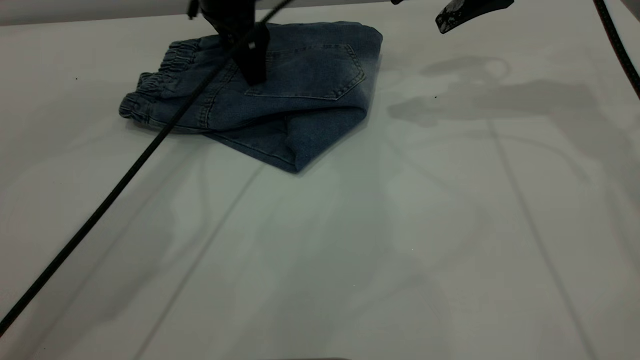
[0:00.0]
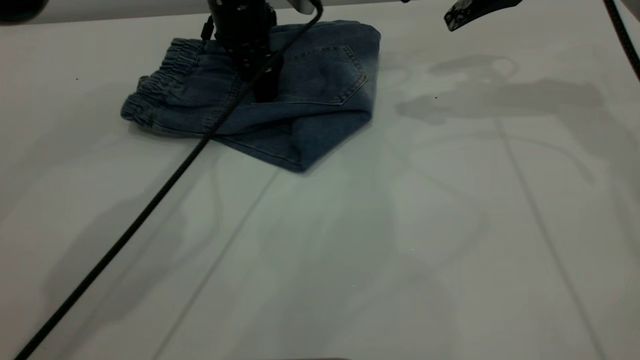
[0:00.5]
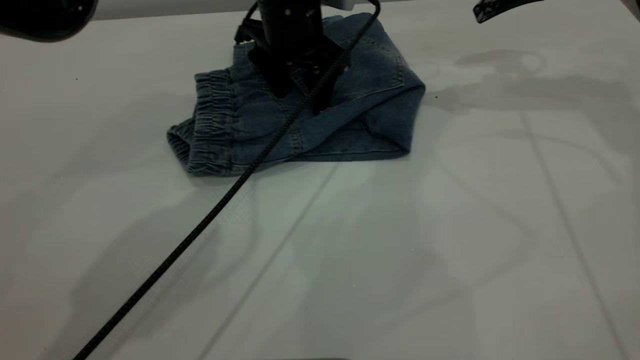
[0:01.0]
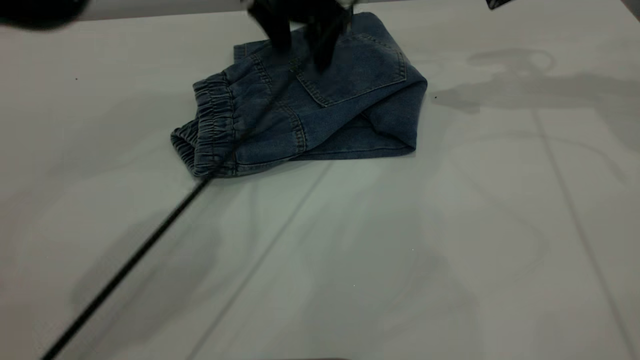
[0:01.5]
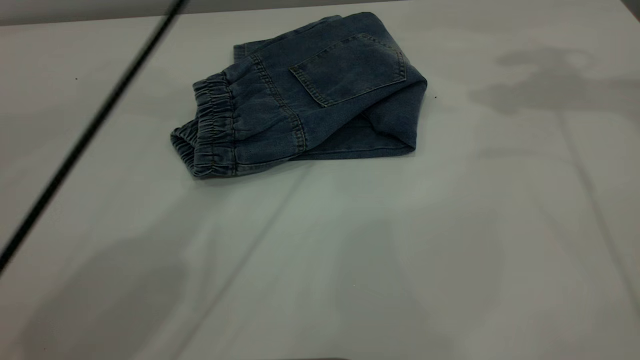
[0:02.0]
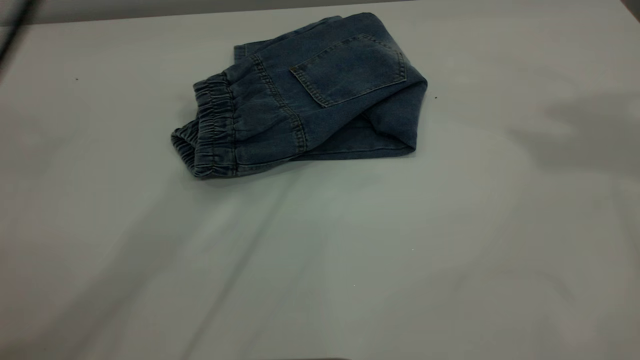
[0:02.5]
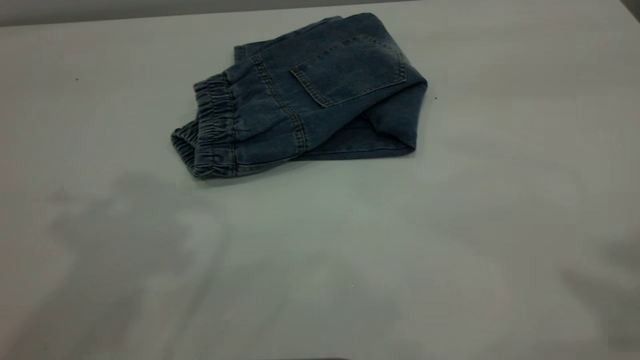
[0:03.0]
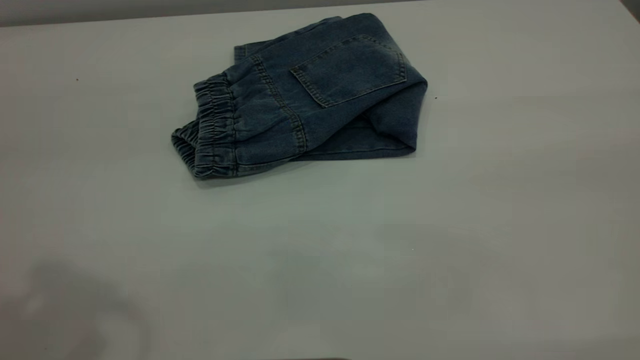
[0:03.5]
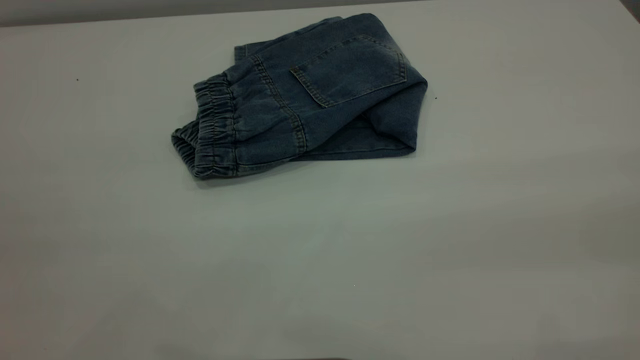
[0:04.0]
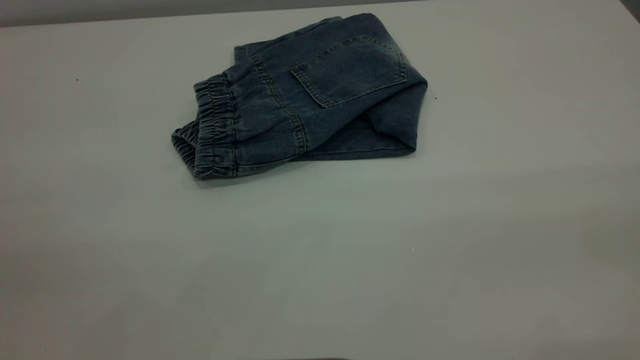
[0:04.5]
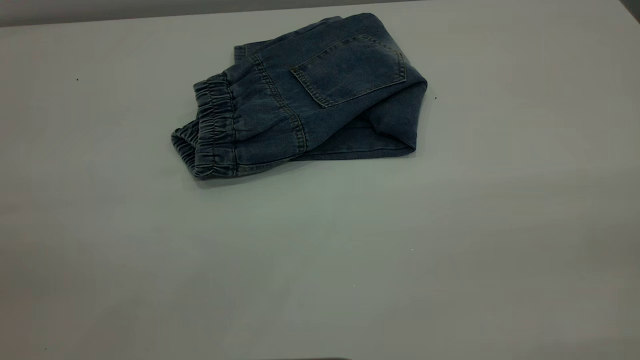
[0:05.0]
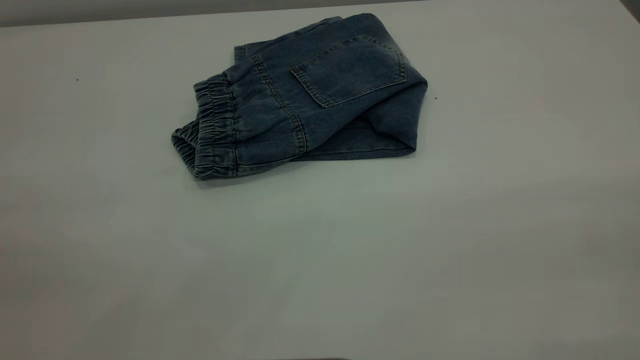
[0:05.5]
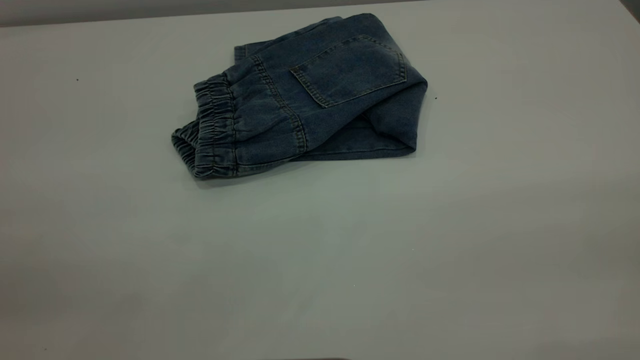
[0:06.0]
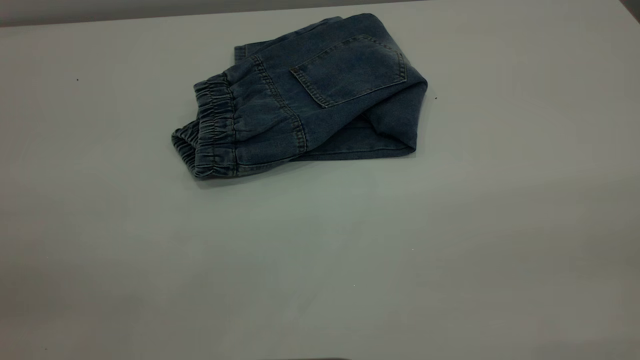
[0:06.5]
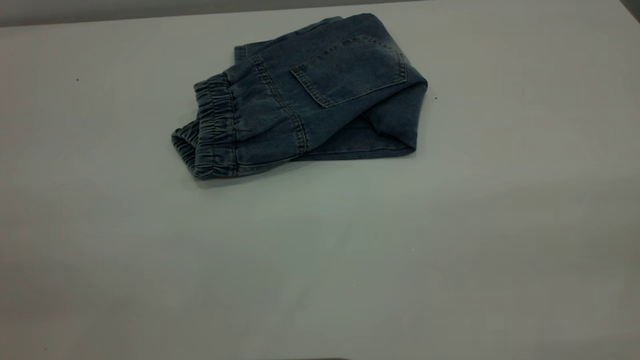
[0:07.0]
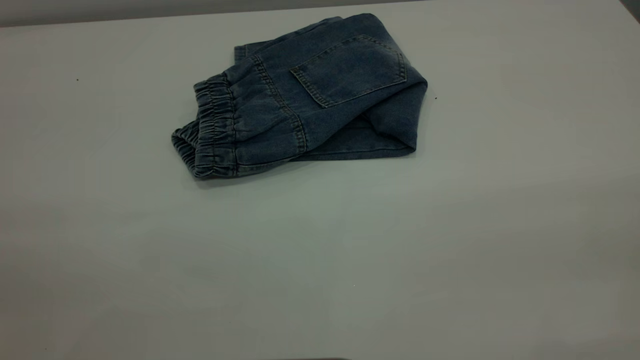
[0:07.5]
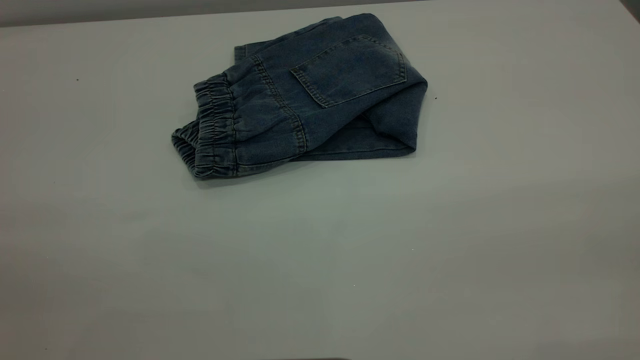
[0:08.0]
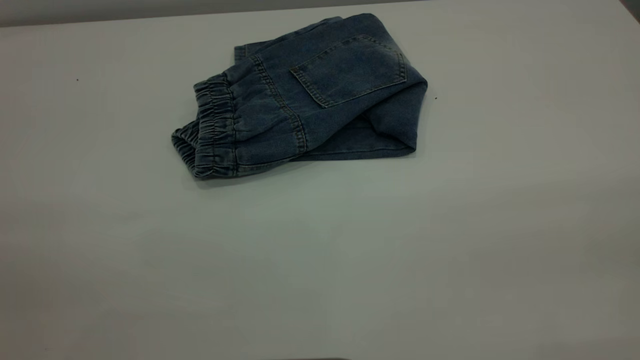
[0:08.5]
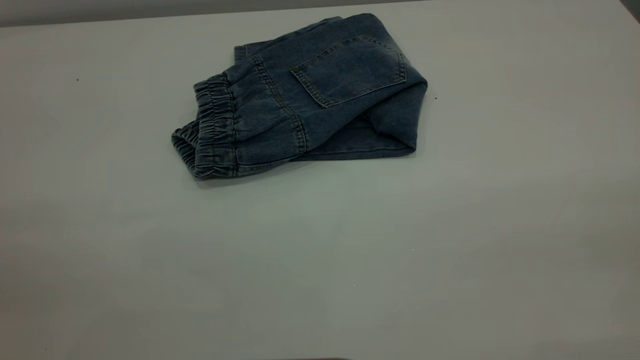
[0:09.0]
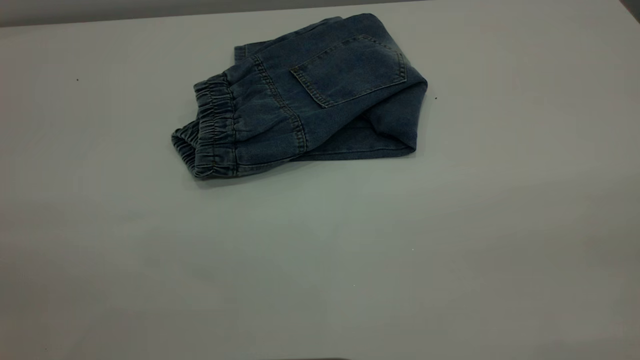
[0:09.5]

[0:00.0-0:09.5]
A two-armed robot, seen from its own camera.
0:00.0 to 0:02.0: The right gripper shifts roughly 15 cm upward and to the right. The left gripper is displaced upward by roughly 20 cm.
0:02.0 to 0:04.0: The left gripper goes some 50 cm backward and to the left.

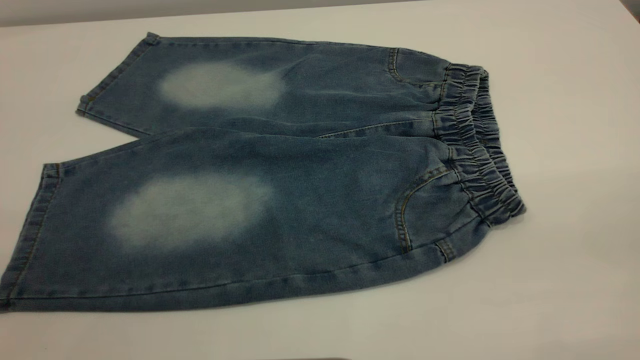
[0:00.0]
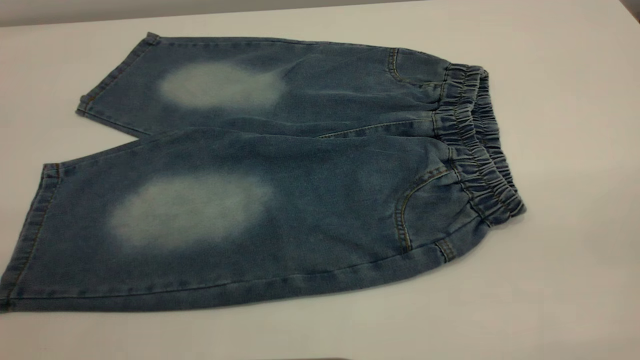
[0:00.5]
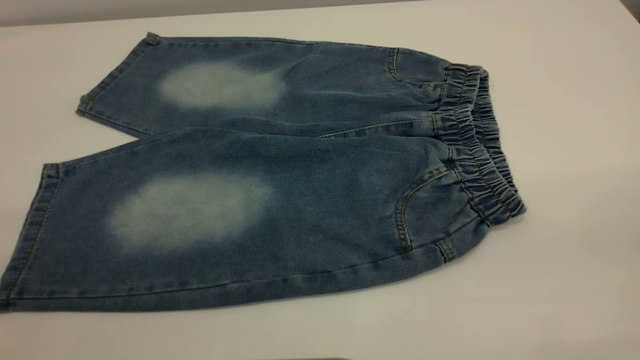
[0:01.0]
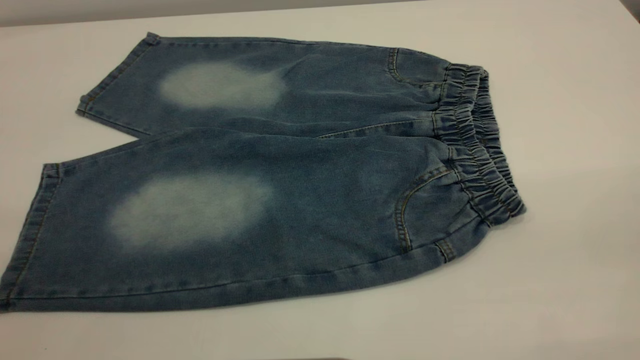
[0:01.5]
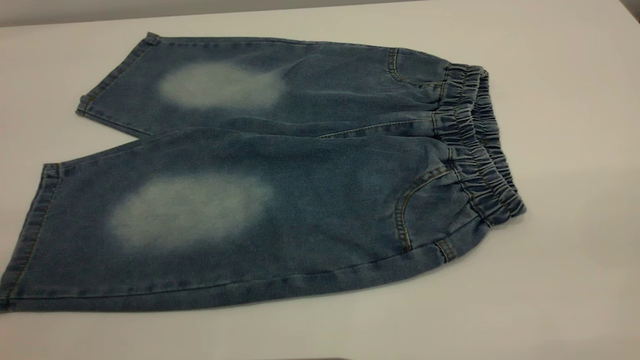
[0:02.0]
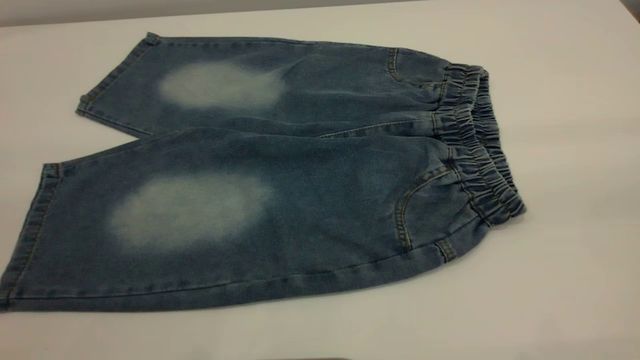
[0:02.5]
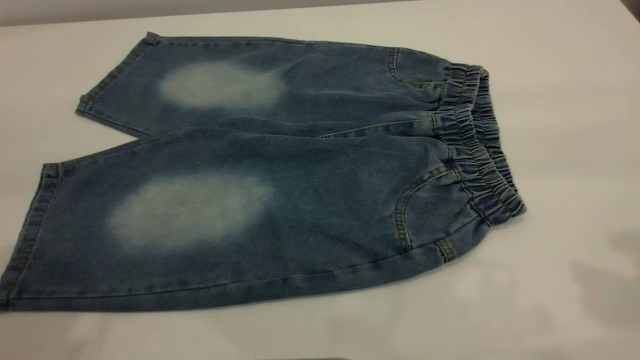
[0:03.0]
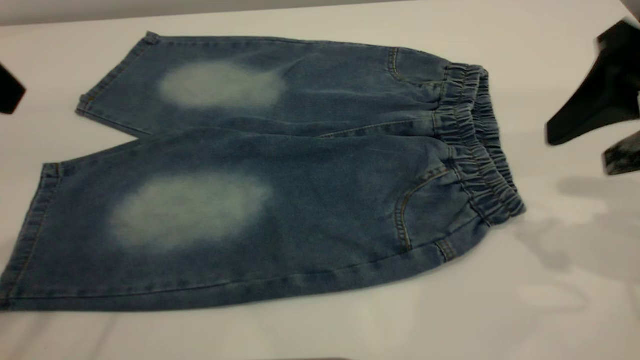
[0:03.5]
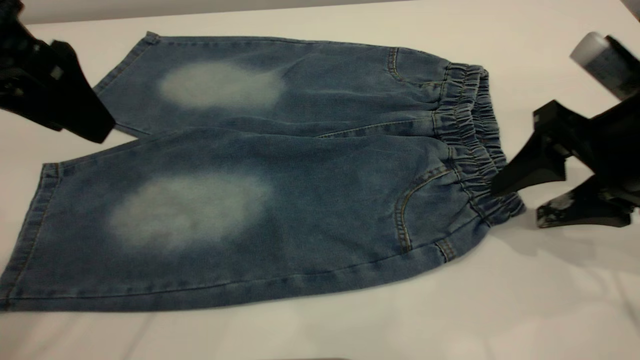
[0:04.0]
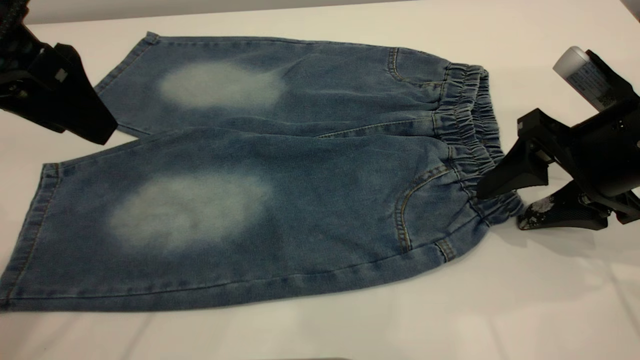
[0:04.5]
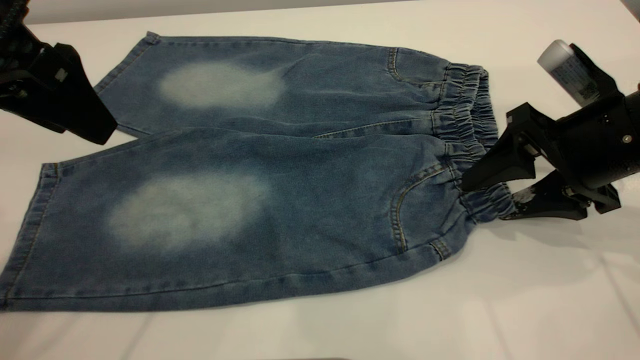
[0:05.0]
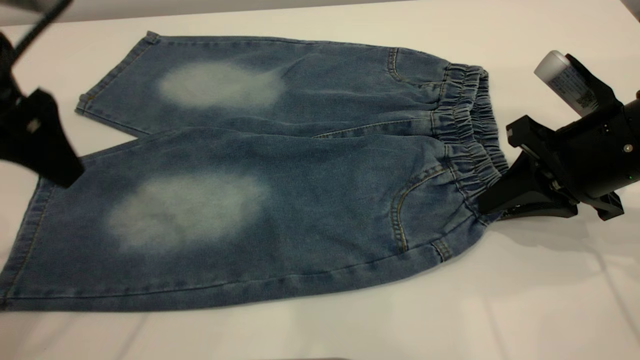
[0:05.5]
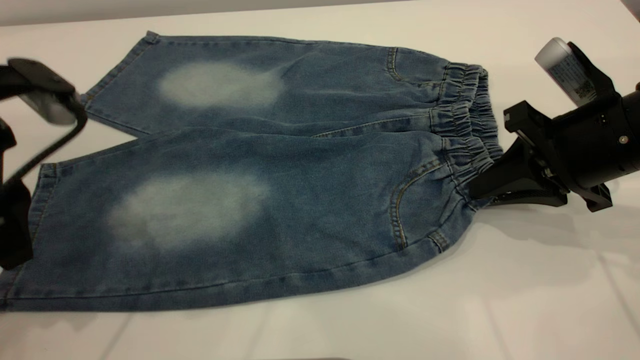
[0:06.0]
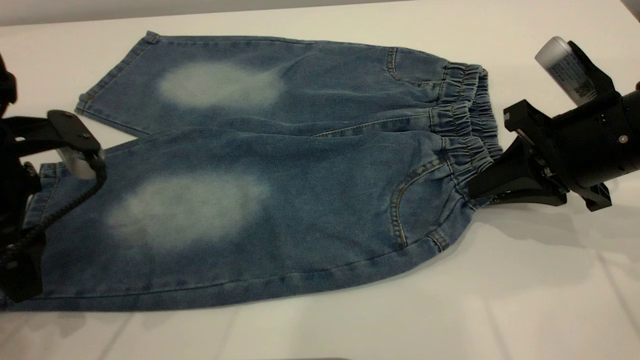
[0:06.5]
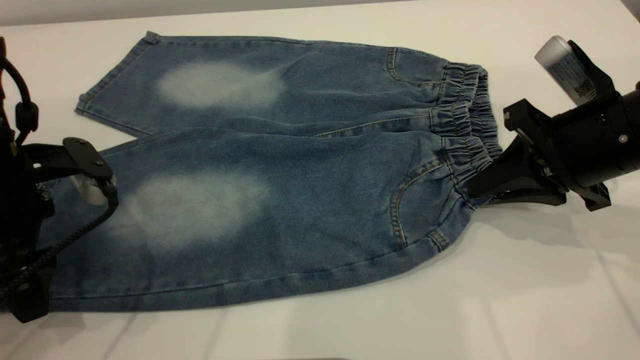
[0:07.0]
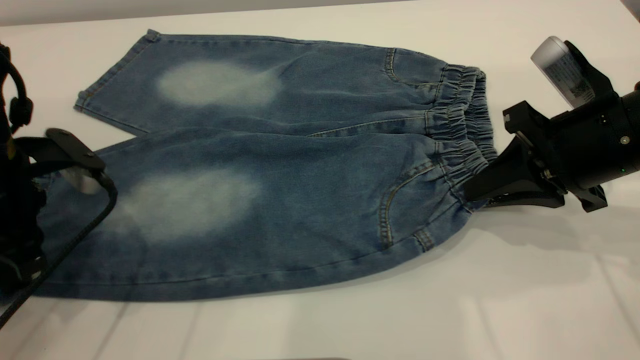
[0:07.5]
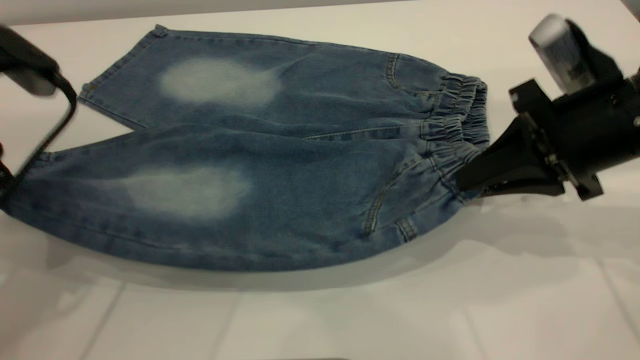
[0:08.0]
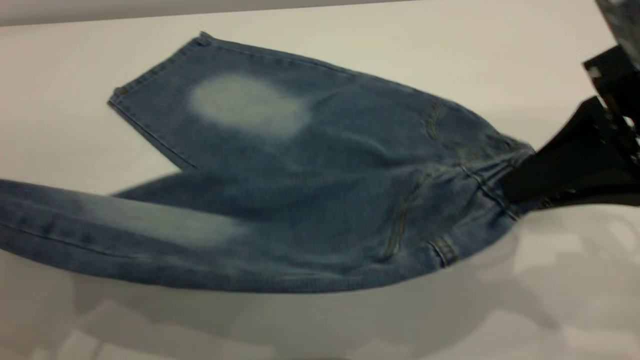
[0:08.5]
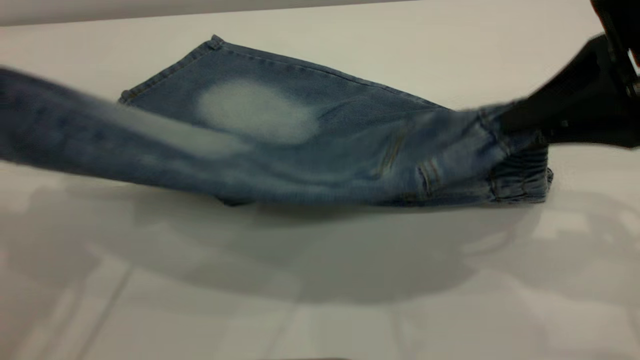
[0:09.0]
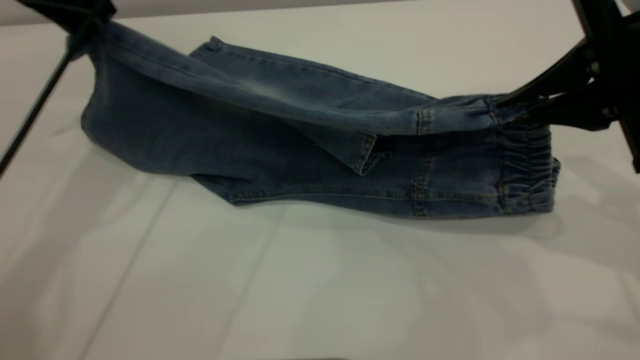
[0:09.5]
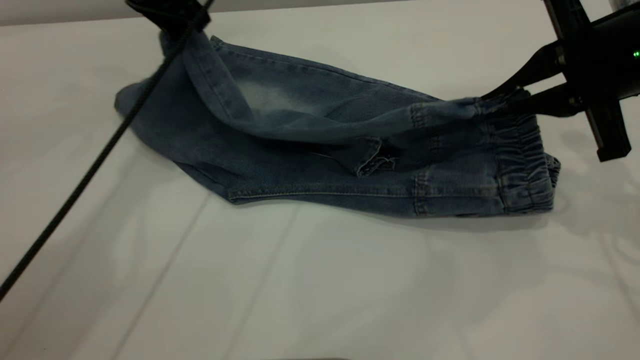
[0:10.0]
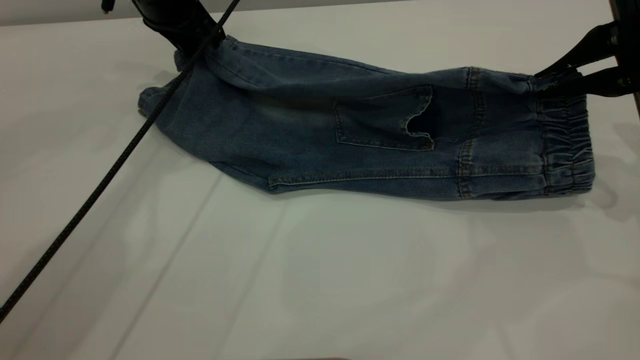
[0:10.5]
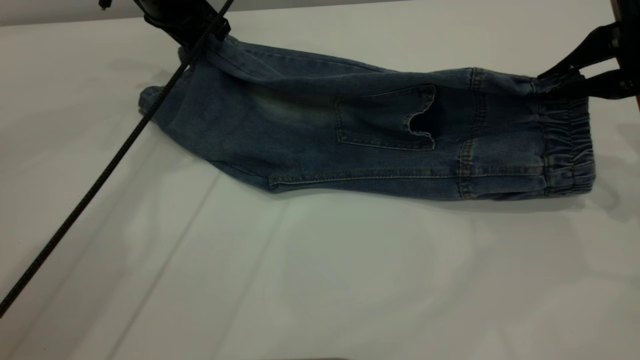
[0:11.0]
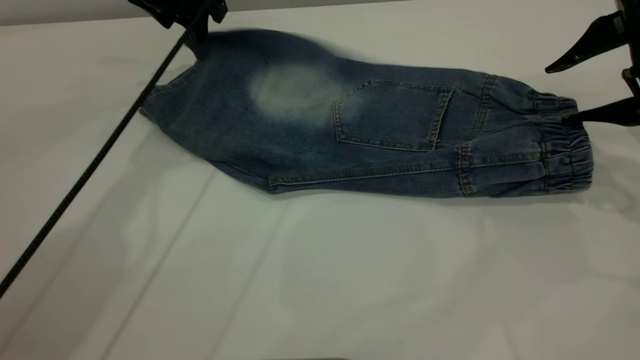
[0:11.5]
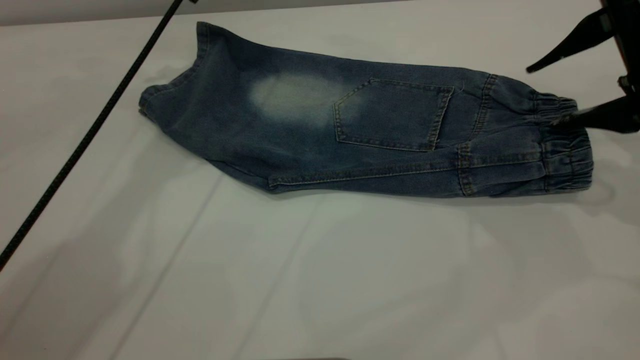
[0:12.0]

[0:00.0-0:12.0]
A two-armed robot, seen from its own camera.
Step, 0:00.0 to 0:11.5: Fold the bottom of the pants upward.
0:00.0 to 0:02.0: Both grippers stay put.
0:02.0 to 0:04.0: The right gripper moves forward and downward, about 35 cm, while the left gripper heads forward, covering some 25 cm.
0:04.0 to 0:06.0: The right gripper closes up; the left gripper moves downward, approximately 5 cm.
0:06.0 to 0:08.0: The left gripper travels downward and back again, some 5 cm each way, and closes its fingers.
0:08.0 to 0:10.0: The left gripper travels forward and to the right by approximately 25 cm, while the right gripper goes backward and returns, roughly 5 cm each way.
0:10.0 to 0:12.0: The left gripper opens; the right gripper opens.
